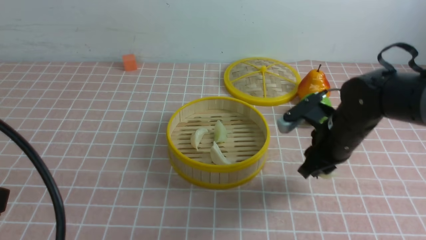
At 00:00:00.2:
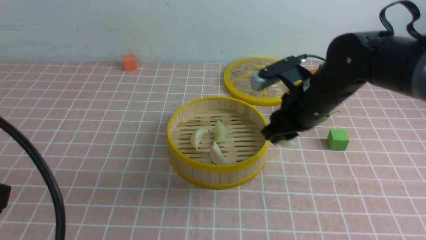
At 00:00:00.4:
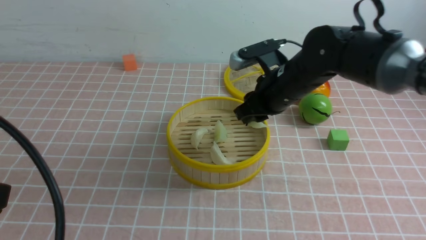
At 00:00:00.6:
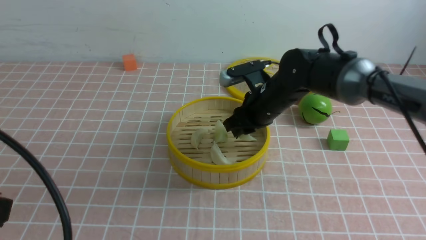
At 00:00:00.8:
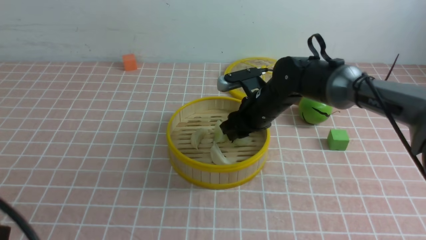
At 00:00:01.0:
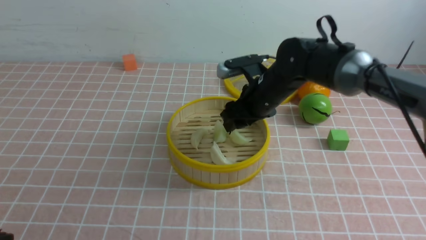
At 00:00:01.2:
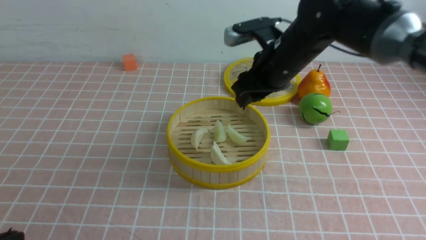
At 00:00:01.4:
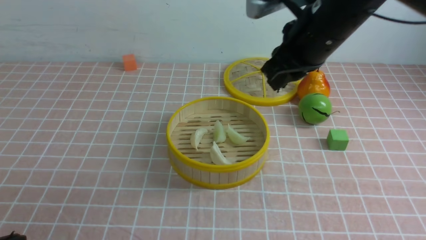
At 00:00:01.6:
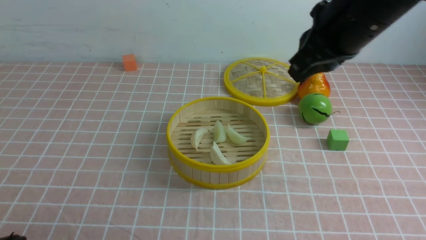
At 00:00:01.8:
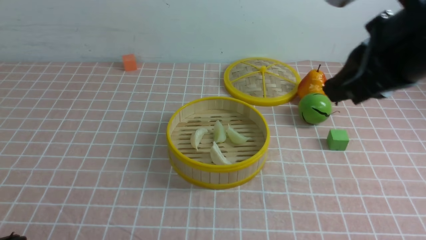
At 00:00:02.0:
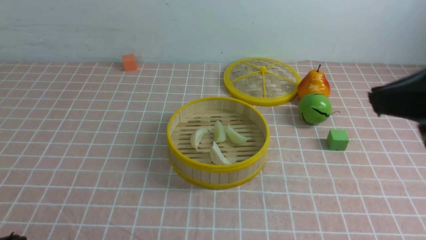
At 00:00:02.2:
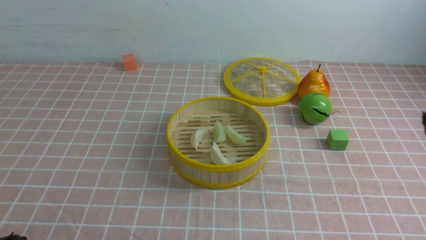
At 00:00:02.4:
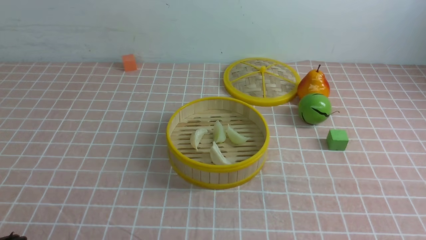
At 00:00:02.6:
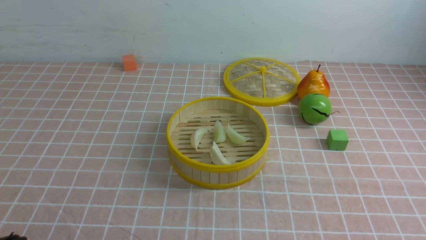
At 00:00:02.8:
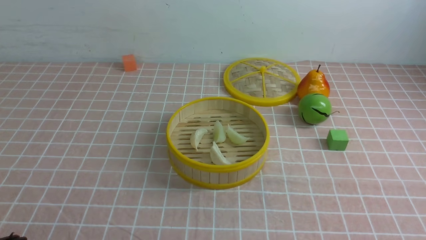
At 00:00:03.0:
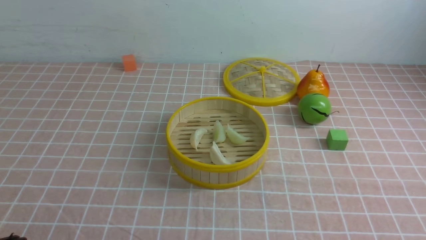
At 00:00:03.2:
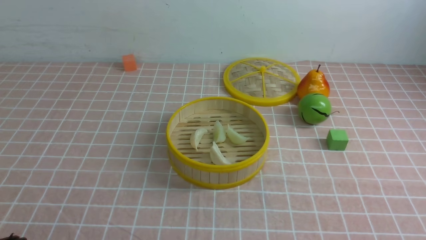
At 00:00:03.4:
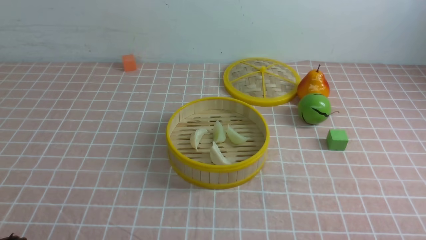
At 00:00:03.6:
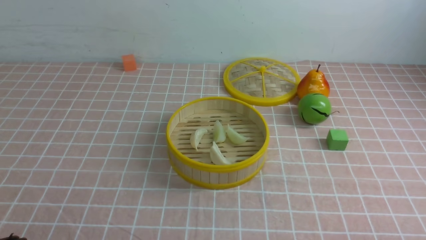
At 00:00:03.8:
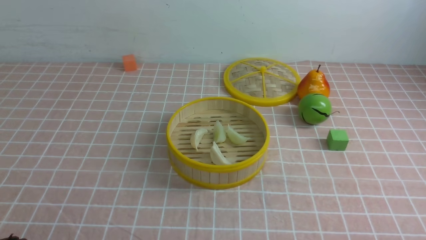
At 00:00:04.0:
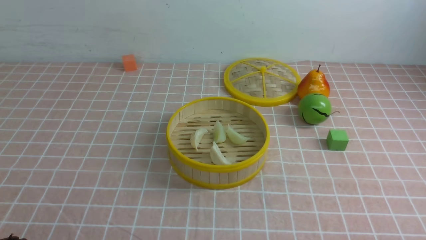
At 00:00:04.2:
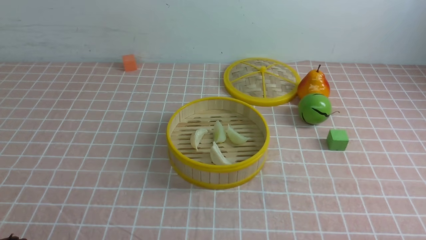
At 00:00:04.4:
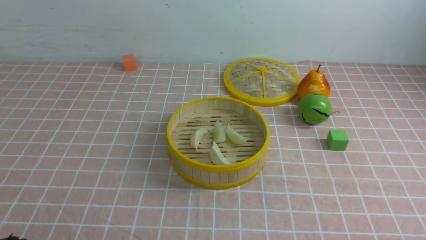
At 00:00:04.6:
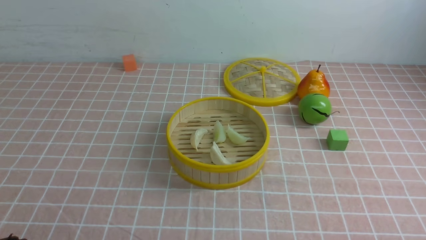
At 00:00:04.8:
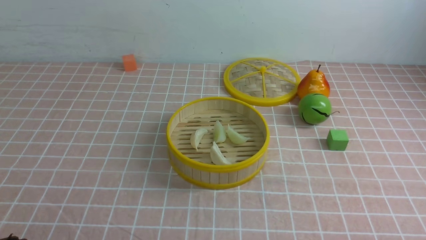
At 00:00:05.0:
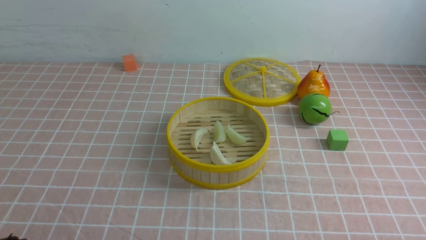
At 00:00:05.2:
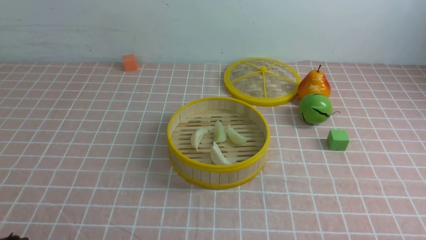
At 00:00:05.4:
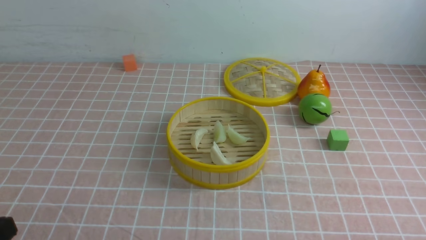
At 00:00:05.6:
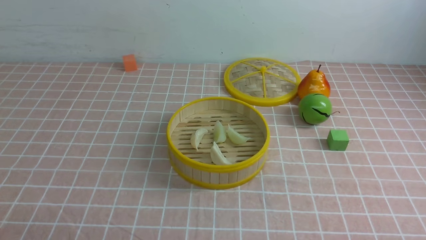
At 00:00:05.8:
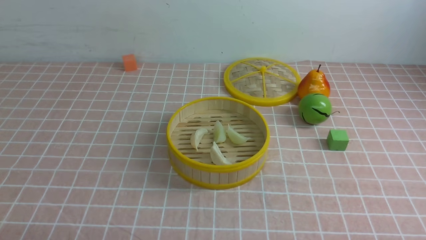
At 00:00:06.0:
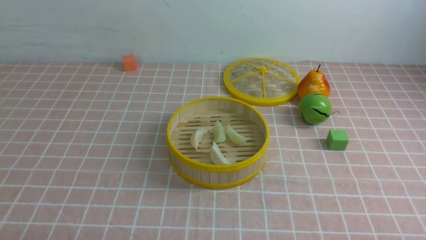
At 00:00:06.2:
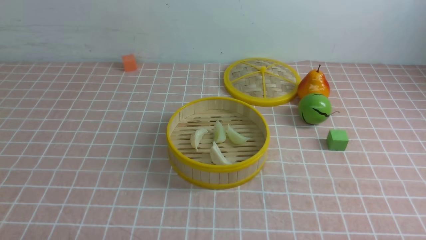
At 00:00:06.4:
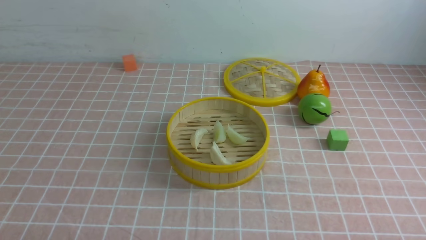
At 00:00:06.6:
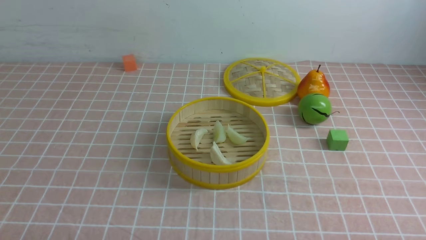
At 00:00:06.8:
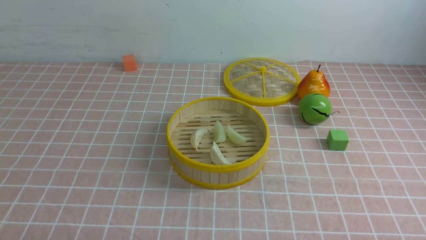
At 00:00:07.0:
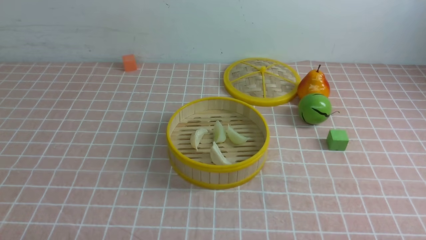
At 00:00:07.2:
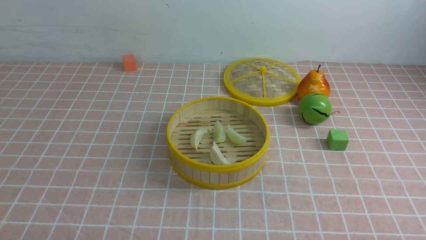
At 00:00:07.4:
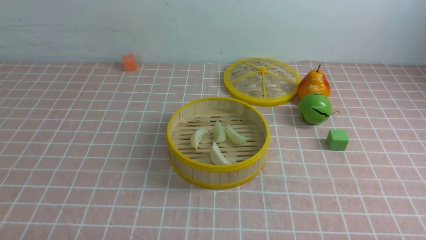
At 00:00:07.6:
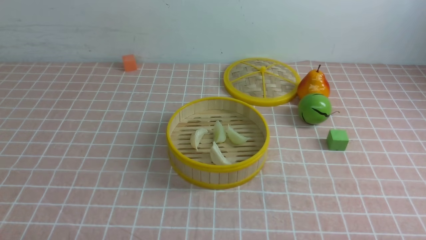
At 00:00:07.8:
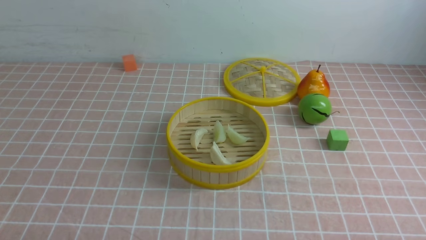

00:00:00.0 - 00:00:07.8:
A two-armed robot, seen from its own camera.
Task of the whole recording: put the dumplings into the steamer on the table with the pink tablecloth.
Step, 00:00:00.0 - 00:00:01.0: use the right arm to put the dumpling into the steamer.
00:00:00.0 - 00:00:01.6: The right gripper goes some 20 cm upward, and closes. Meanwhile the left gripper moves downward, roughly 10 cm.
00:00:01.6 - 00:00:03.2: The right gripper shifts some 30 cm backward, downward and to the right.
00:00:06.2 - 00:00:07.8: Neither gripper changes place.
